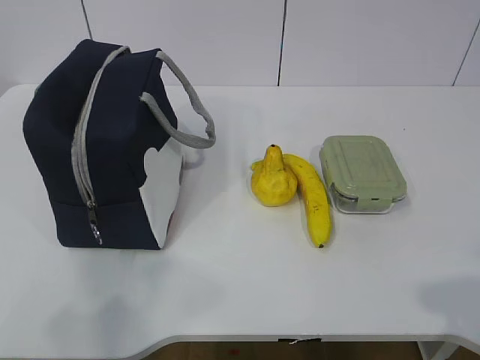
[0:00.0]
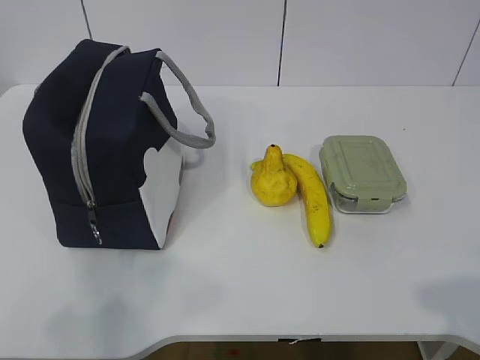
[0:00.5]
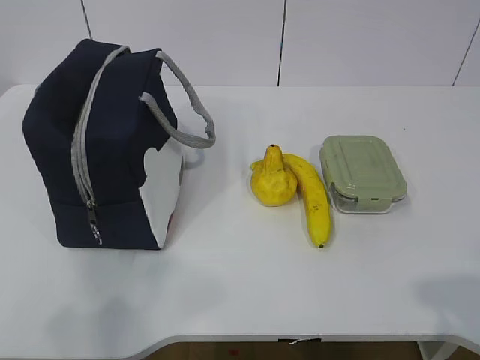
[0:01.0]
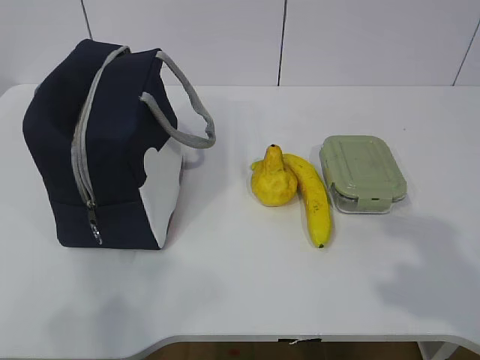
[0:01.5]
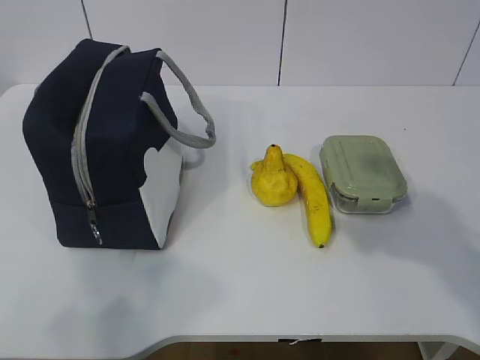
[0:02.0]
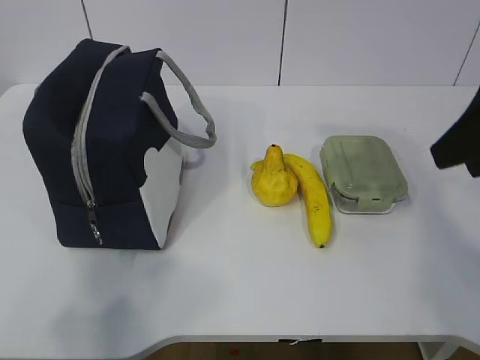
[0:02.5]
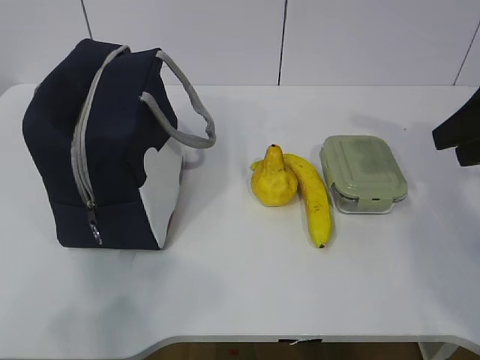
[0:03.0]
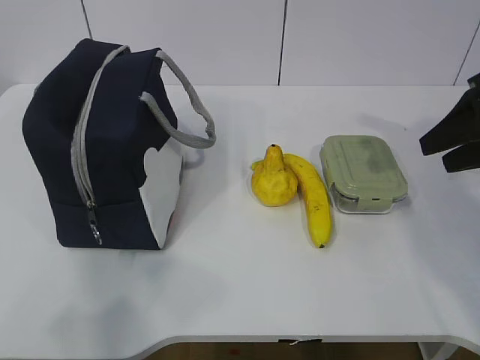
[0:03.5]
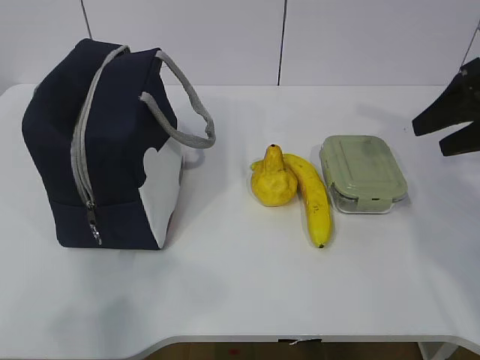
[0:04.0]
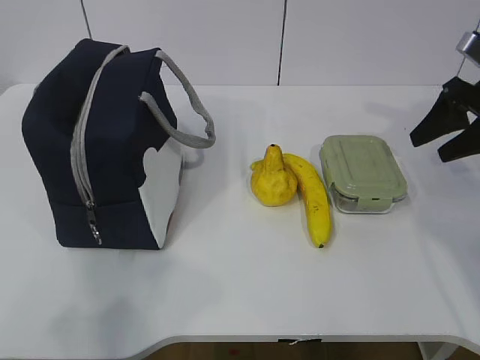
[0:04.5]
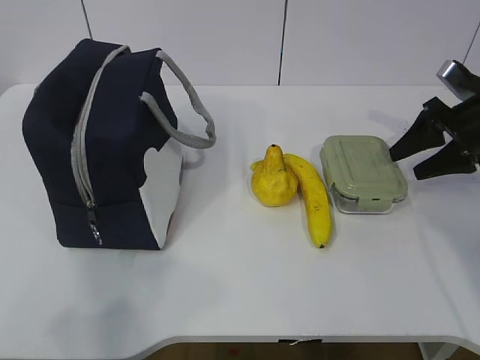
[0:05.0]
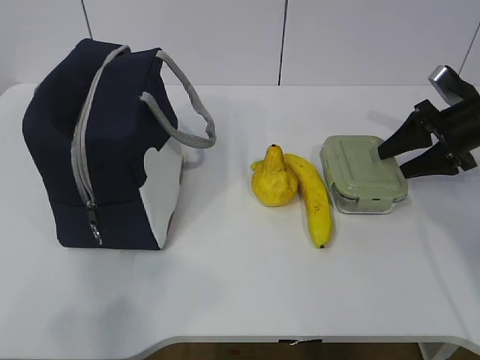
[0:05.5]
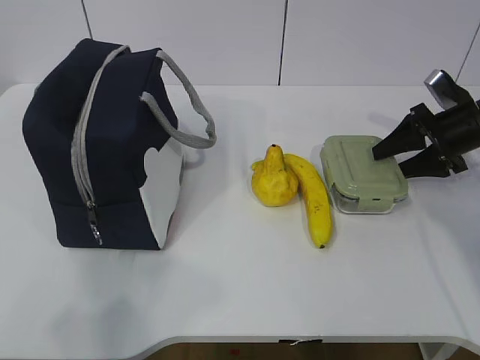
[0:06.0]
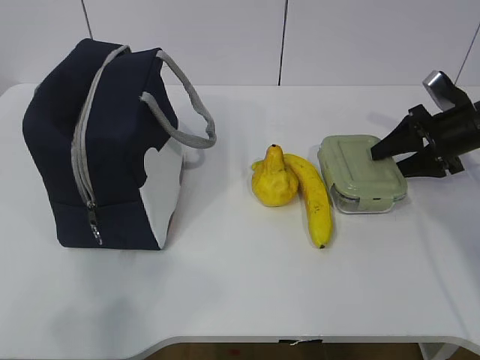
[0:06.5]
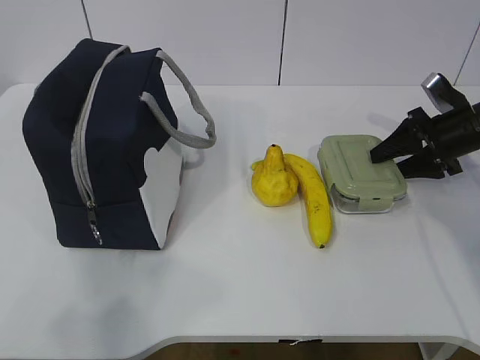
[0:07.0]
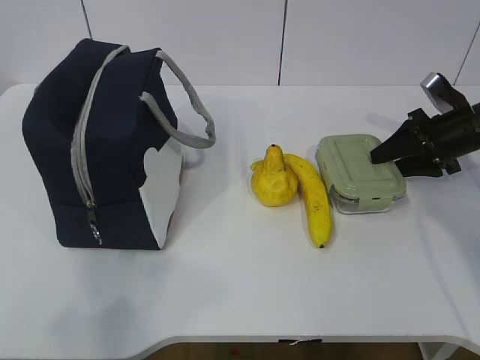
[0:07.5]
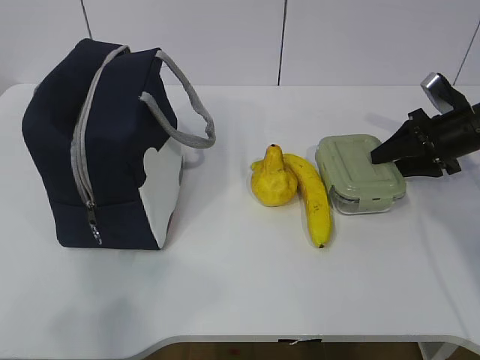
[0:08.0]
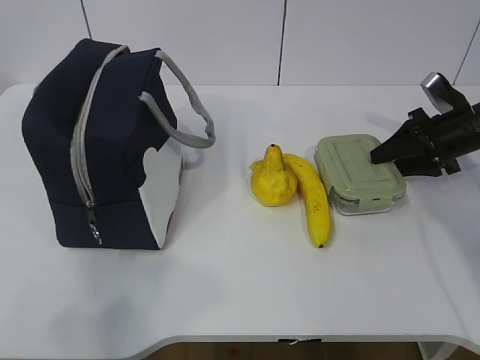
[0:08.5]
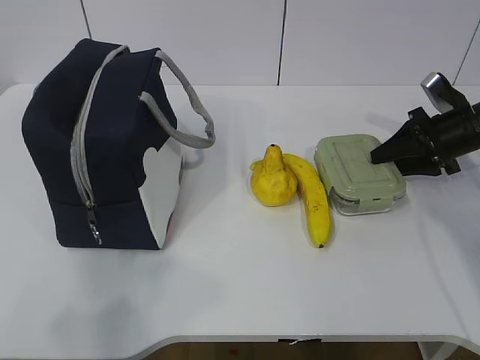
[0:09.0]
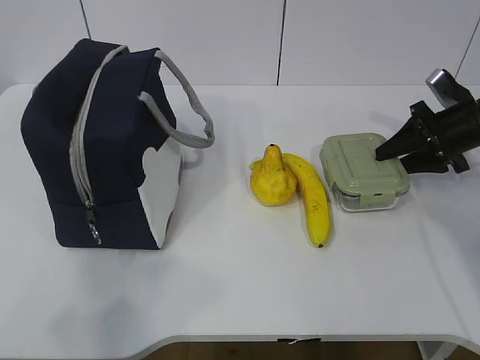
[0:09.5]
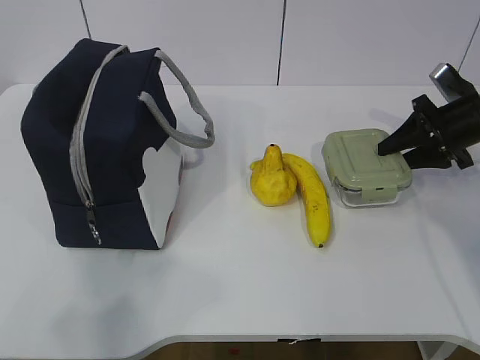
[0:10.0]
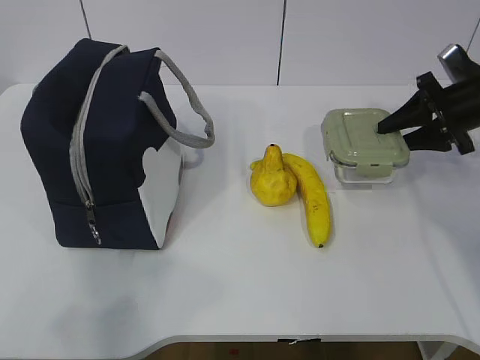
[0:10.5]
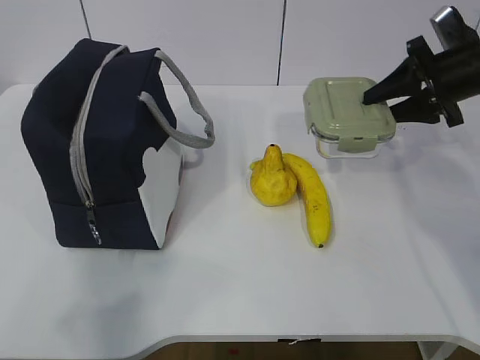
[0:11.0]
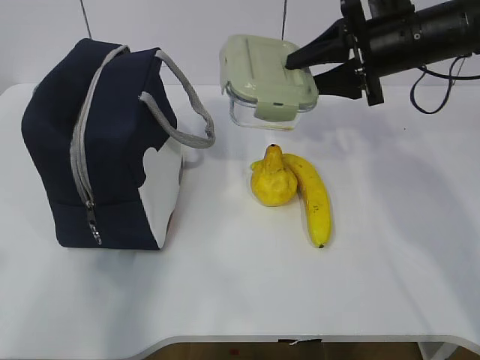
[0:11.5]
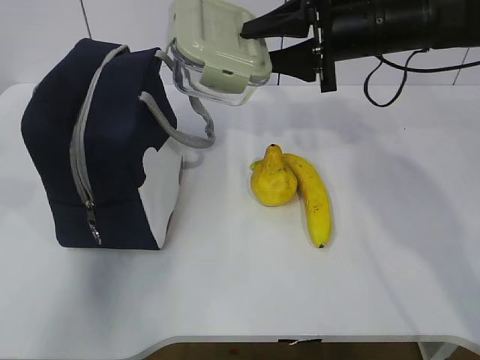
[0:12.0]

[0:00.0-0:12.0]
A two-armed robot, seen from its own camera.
Step, 0:00.0 to 0:07.5: Grab the lunch box with your right hand.
0:02.0 to 0:04.0: The right gripper moves forward, about 20 cm.
0:04.0 to 0:06.0: The right gripper moves downward and forward, approximately 15 cm.
0:06.0 to 0:08.0: Both grippers stay put.
0:08.0 to 0:10.0: The grippers make only small movements.
0:10.0 to 0:12.0: The left gripper is displaced forward by roughly 15 cm, while the right gripper moves to the left and upward, about 20 cm.

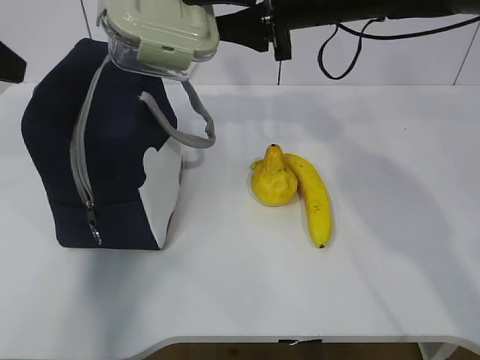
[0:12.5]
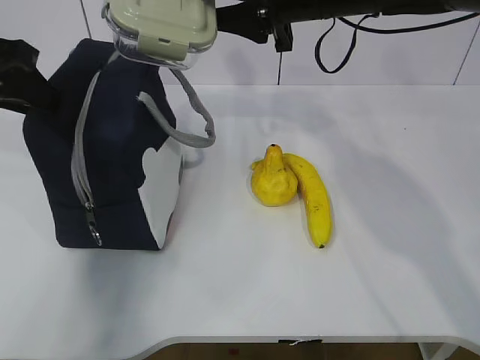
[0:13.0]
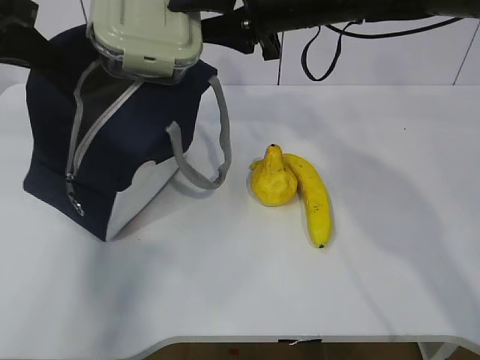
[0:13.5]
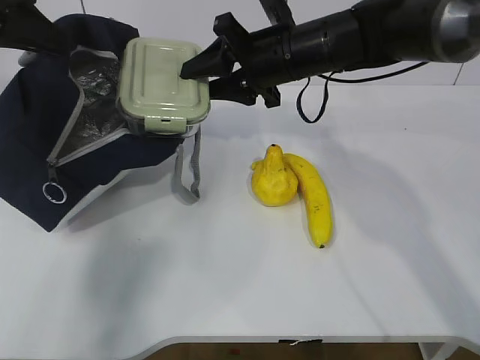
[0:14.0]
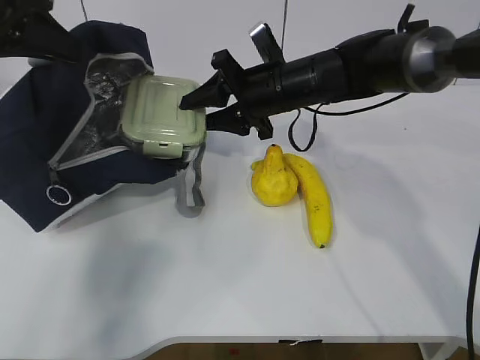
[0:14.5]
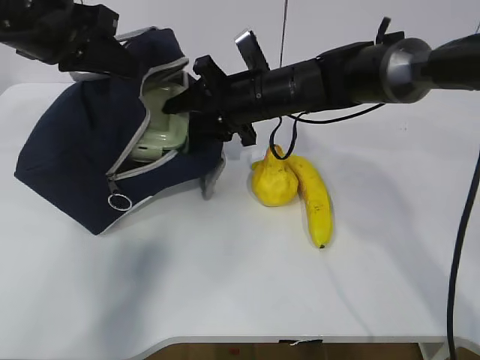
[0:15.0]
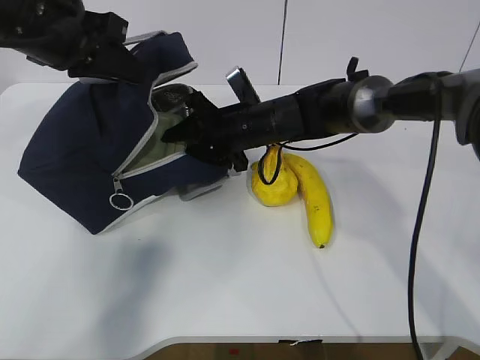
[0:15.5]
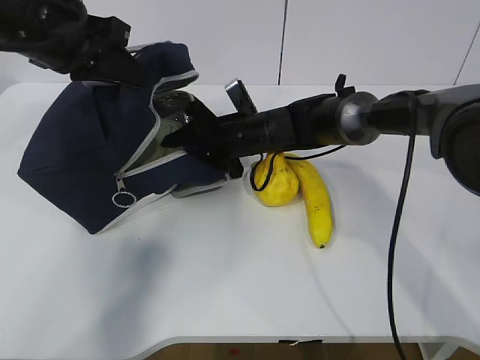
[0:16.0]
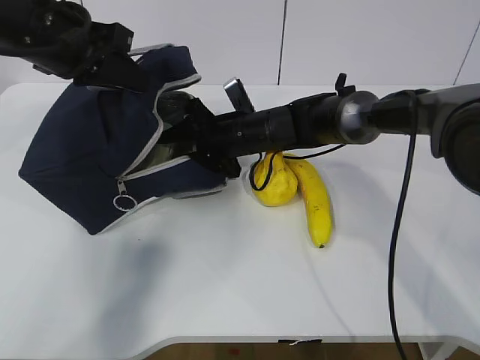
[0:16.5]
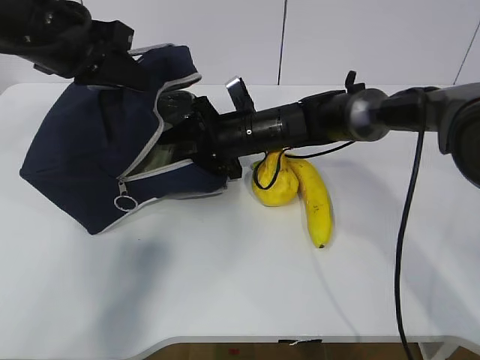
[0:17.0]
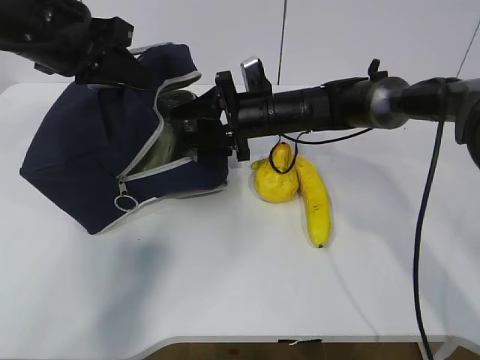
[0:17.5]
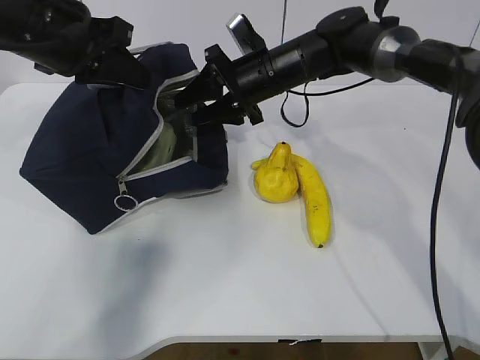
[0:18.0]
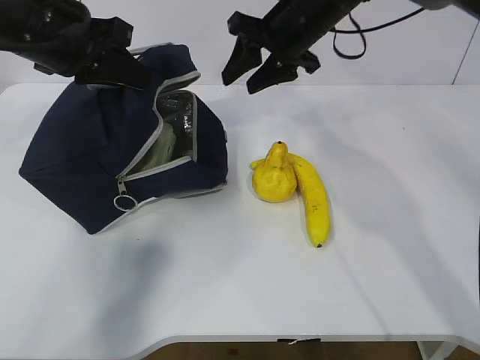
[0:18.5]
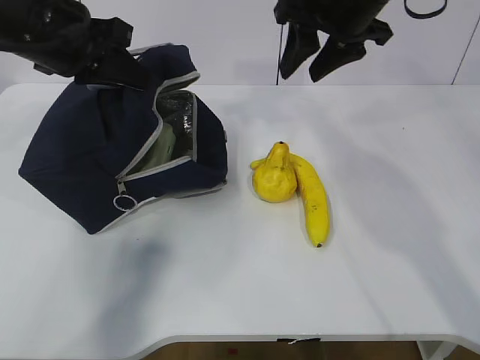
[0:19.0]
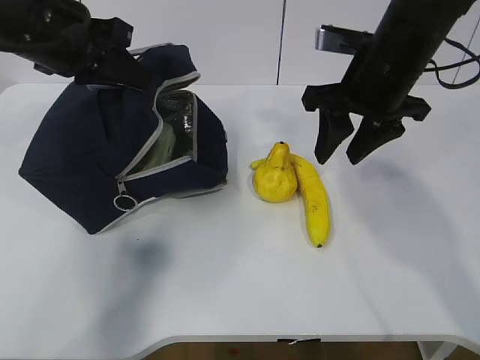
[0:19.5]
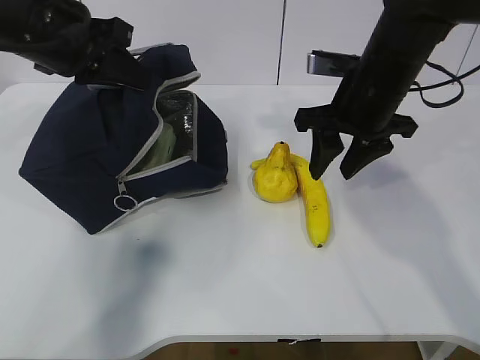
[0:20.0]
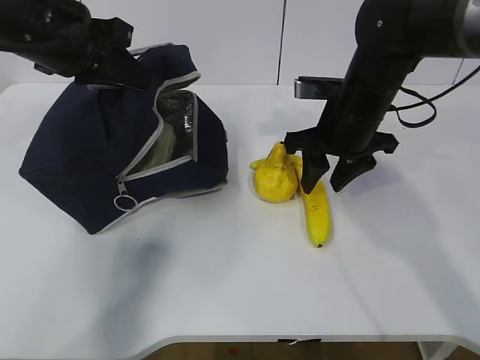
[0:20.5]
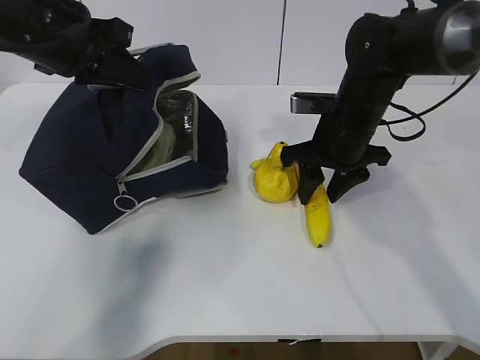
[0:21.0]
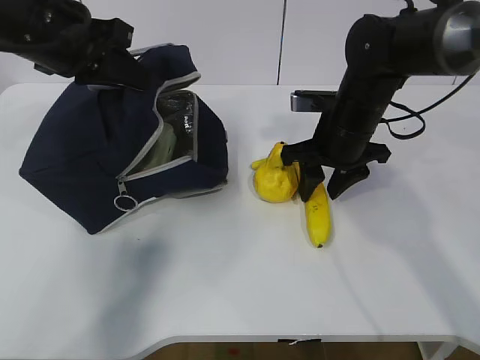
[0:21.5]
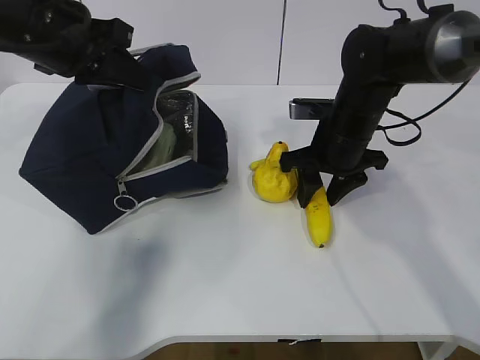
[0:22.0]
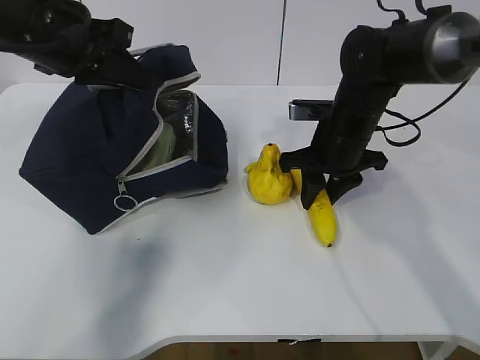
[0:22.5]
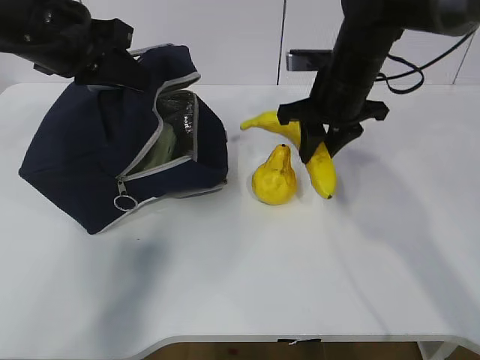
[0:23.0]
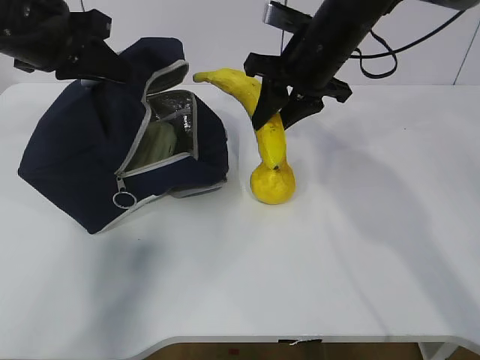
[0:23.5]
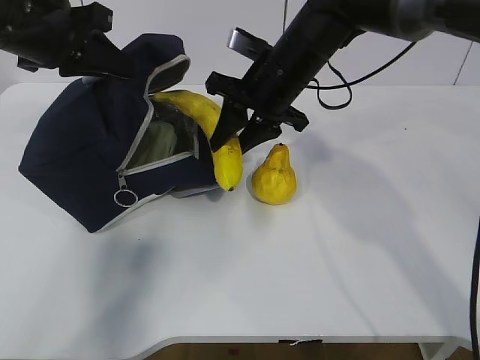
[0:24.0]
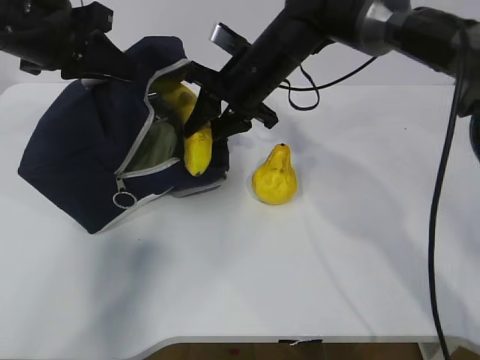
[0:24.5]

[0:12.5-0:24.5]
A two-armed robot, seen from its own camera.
Step, 0:12.5 to 0:14.0: Place it into the bag with your right hand.
Step, 0:14.5 to 0:18.5: Grab the banana with your right hand.
Step, 0:19.0 to 0:21.5: Place it into the bag with your right hand.
0:12.5 to 0:14.5: The left gripper shifts about 5 cm forward, and closes up. Meanwhile the right gripper is displaced downward by some 10 cm.
0:14.5 to 0:16.5: The left gripper heads to the right, covering roughly 5 cm. The right gripper shifts roughly 10 cm downward.
0:16.5 to 0:18.5: The right gripper goes approximately 15 cm upward and to the right.
0:18.5 to 0:20.5: The right gripper goes roughly 10 cm backward and downward.
0:20.5 to 0:22.5: There are only small adjustments of the grippers.
0:22.5 to 0:24.5: The right gripper heads to the left and upward, covering some 10 cm.

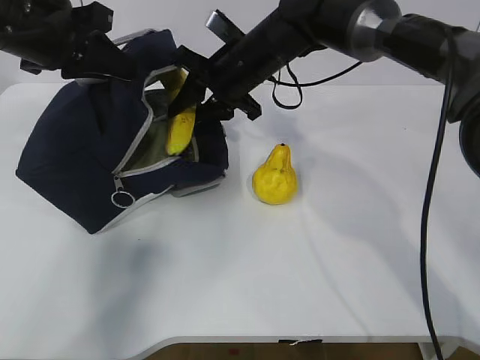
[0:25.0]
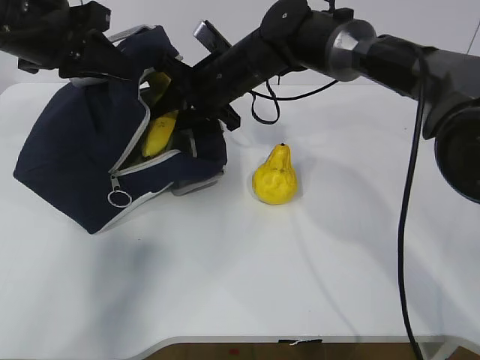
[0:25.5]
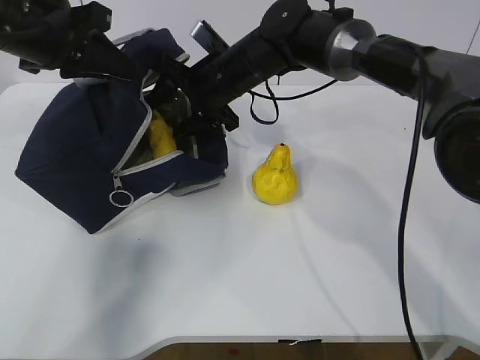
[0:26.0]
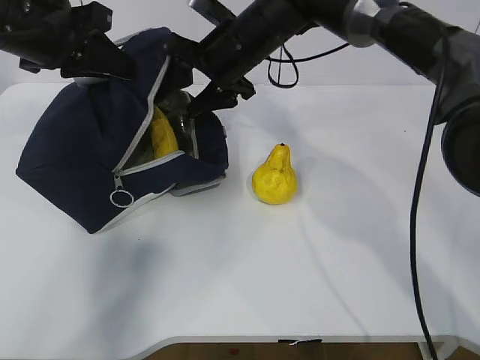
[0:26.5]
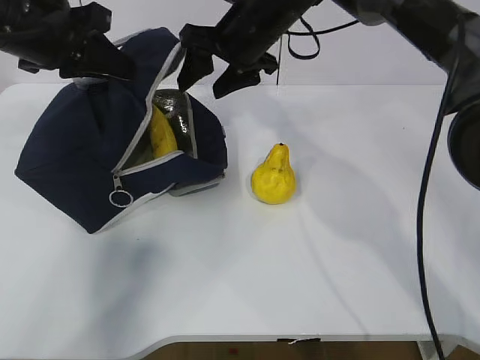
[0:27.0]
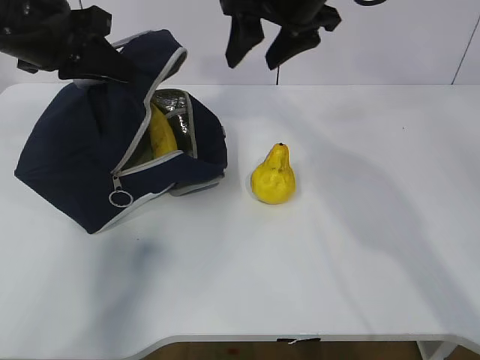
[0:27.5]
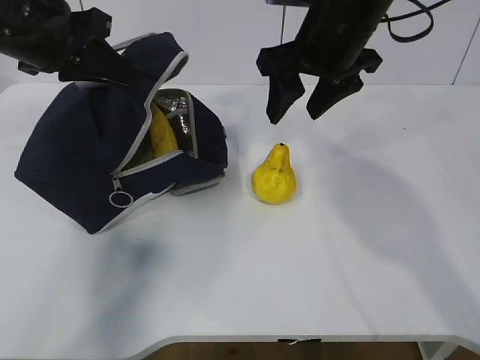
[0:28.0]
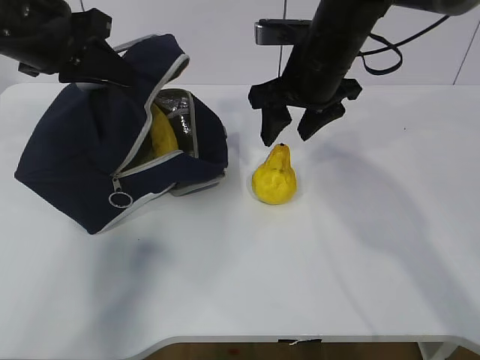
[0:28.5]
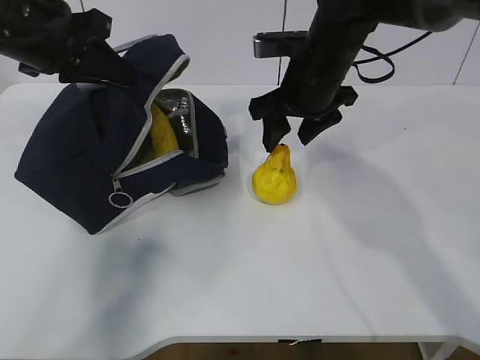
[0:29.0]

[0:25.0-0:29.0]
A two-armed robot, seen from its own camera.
0:25.0 to 0:27.0: The right gripper opens.
0:27.0 to 0:29.0: The right gripper travels to the right by approximately 5 cm, and moves about 5 cm upward and comes back.
